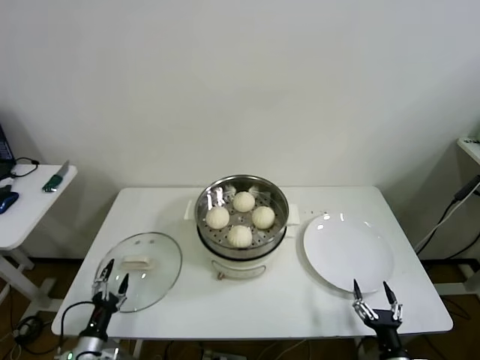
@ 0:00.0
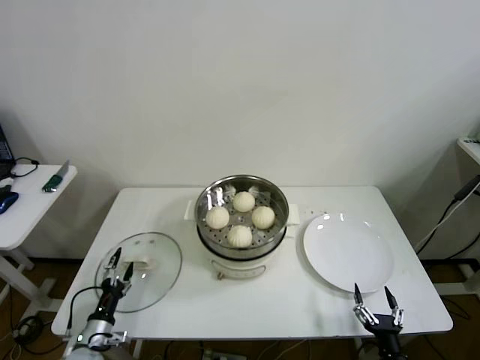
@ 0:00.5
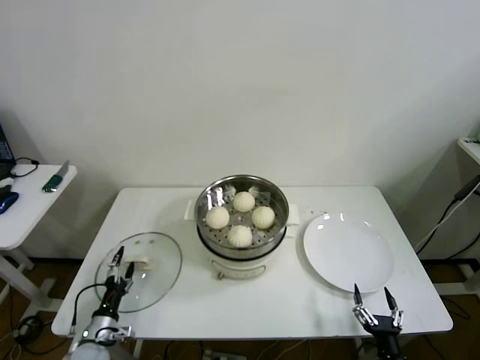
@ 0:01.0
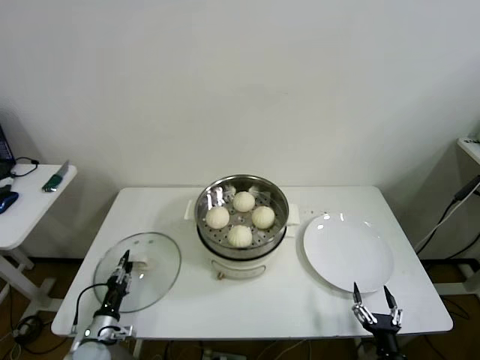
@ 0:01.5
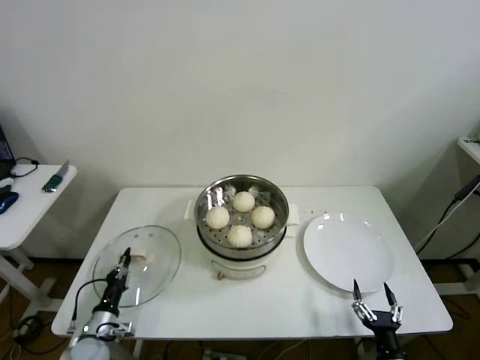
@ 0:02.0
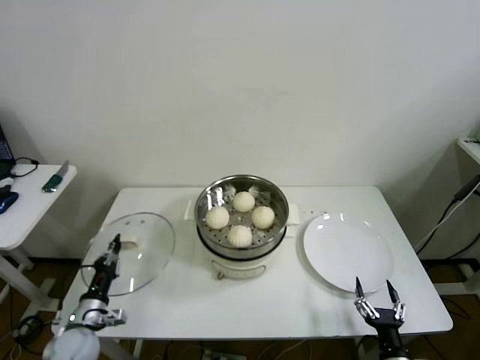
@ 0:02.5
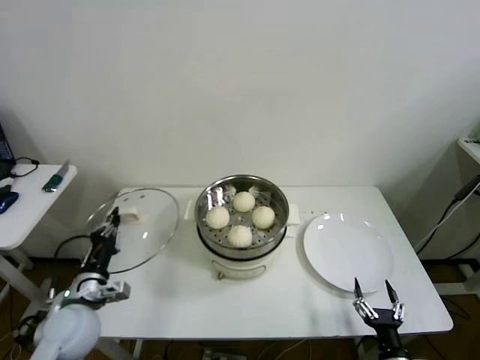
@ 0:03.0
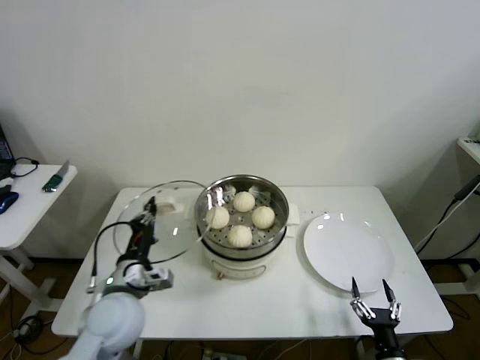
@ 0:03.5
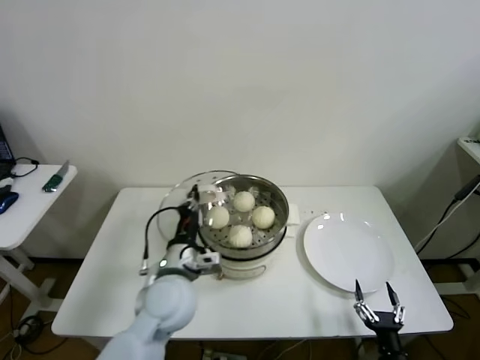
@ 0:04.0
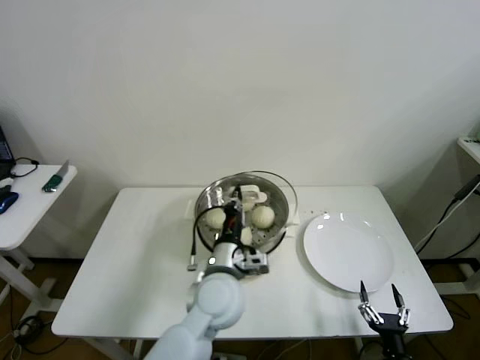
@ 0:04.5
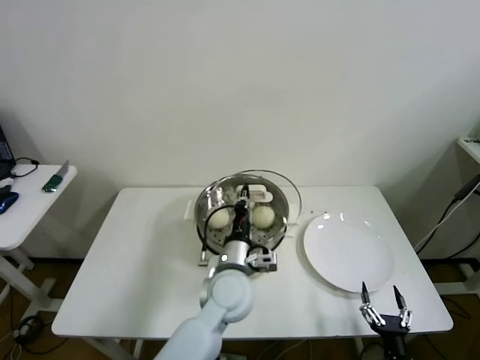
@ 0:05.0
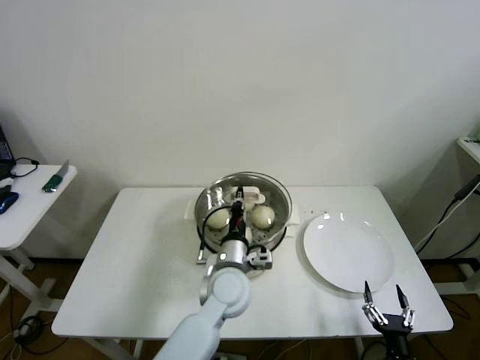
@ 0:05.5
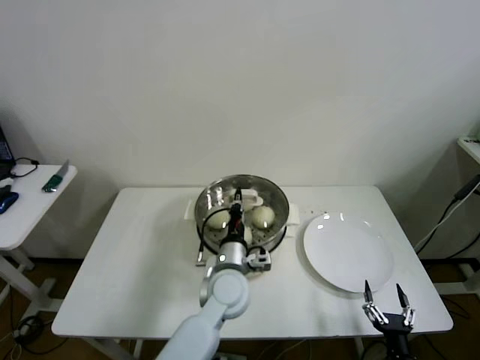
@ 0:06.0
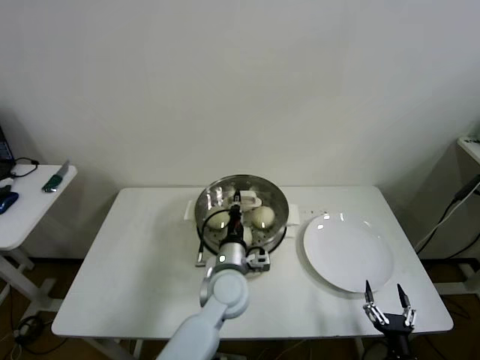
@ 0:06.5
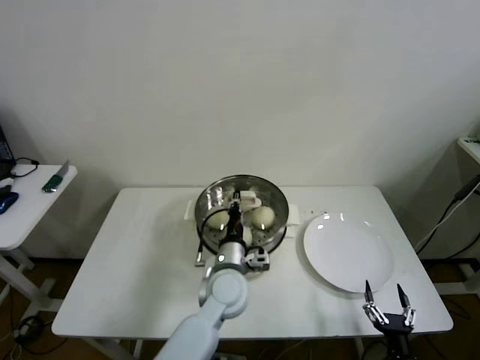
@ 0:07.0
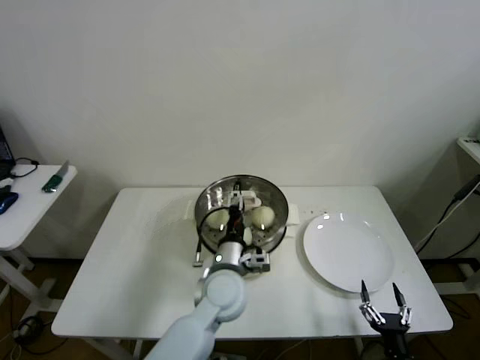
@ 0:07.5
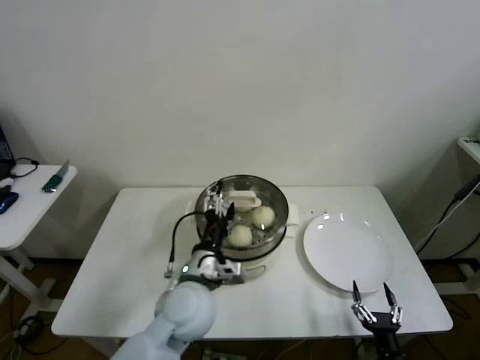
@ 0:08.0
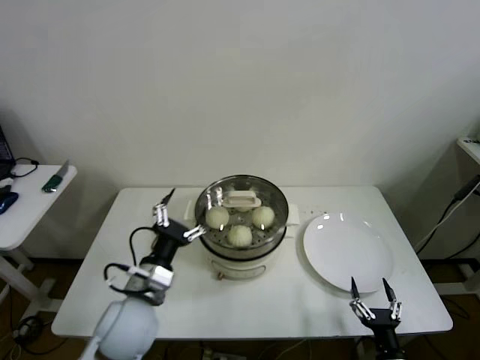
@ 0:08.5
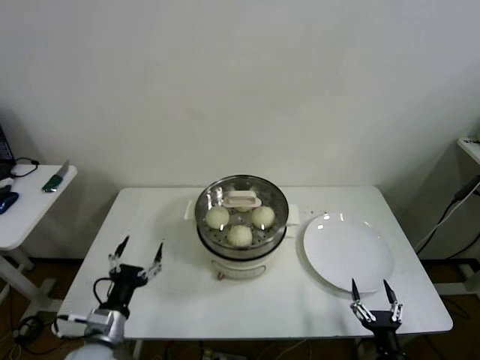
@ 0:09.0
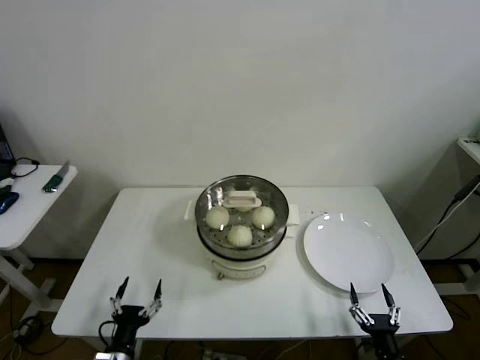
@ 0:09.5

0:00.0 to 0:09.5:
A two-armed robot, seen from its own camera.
Step, 0:02.0 to 0:07.0: Place the pot lid on the steamer with left gripper.
0:00.0 to 0:02.0: The left gripper is displaced forward by approximately 5 cm, and closes.
0:02.0 to 0:04.0: The left gripper moves upward and to the right, some 35 cm.
0:04.0 to 0:05.5: The left gripper is displaced to the right by some 10 cm.
0:05.5 to 0:07.5: The left gripper opens.
0:07.5 to 0:09.5: The left gripper moves to the left, backward and downward, some 35 cm.

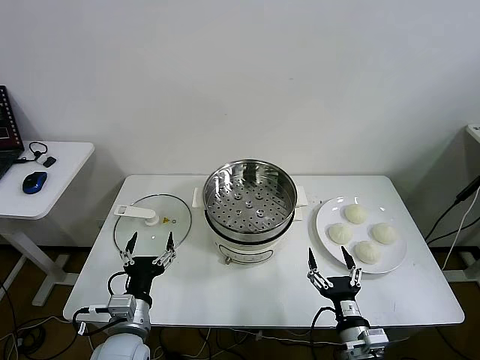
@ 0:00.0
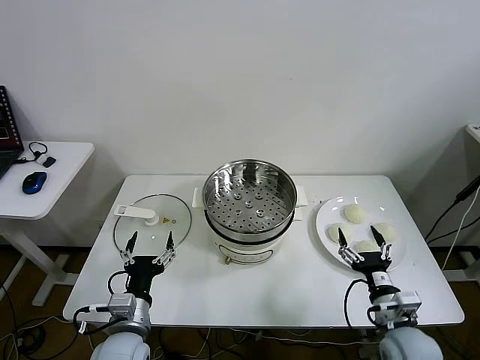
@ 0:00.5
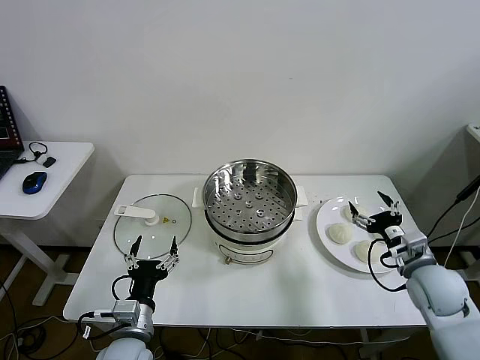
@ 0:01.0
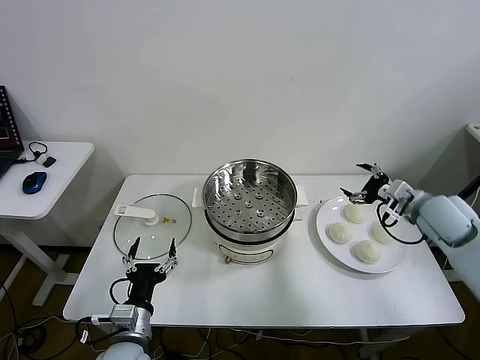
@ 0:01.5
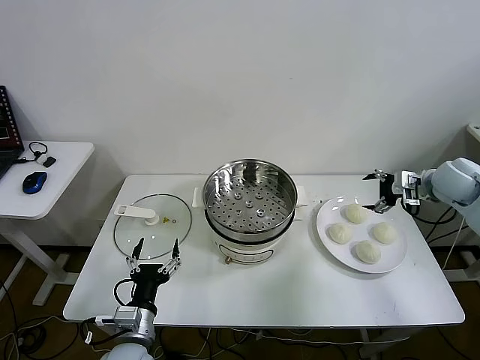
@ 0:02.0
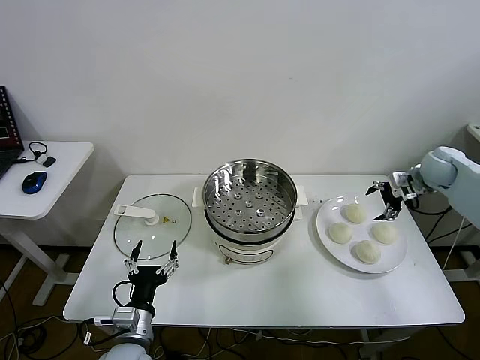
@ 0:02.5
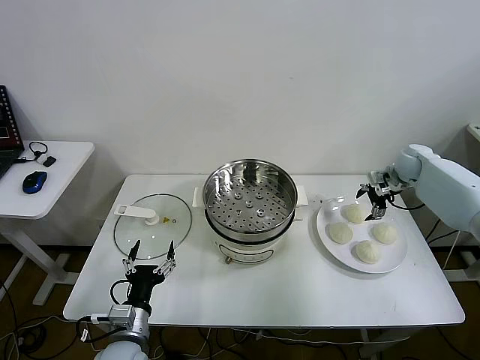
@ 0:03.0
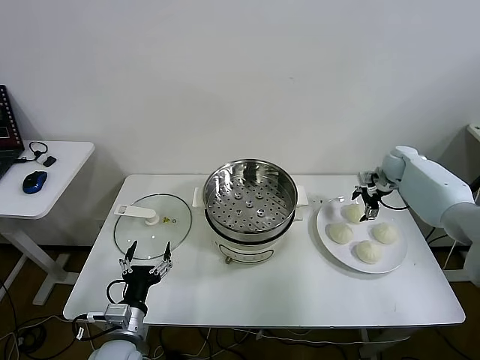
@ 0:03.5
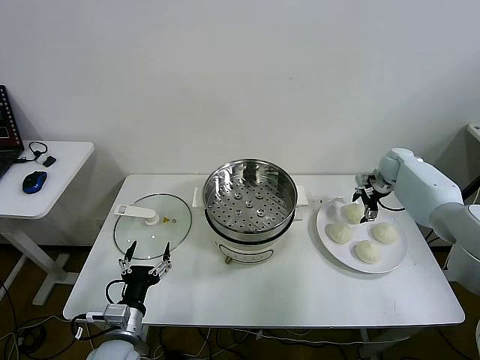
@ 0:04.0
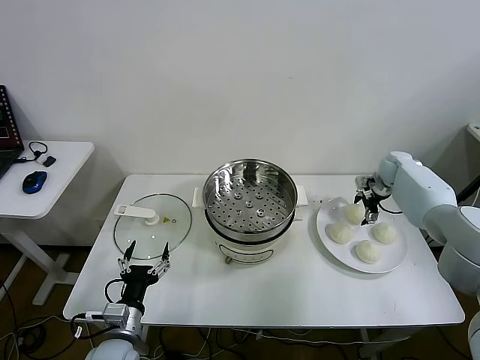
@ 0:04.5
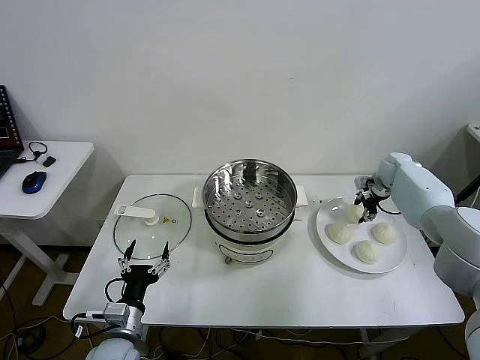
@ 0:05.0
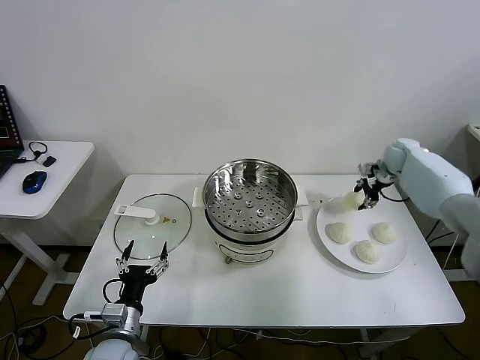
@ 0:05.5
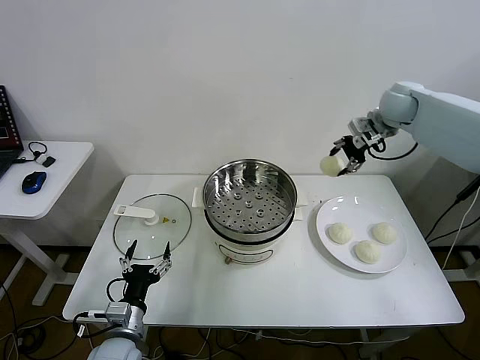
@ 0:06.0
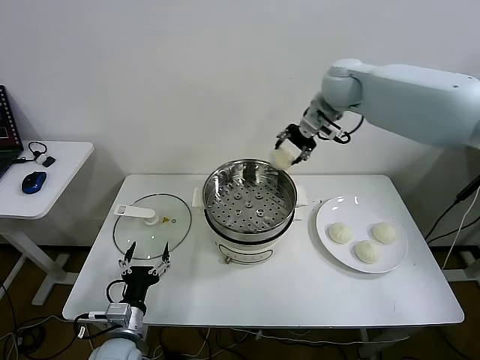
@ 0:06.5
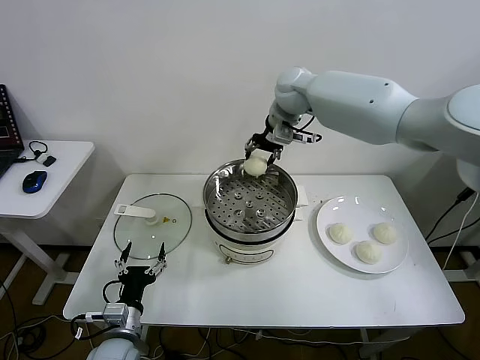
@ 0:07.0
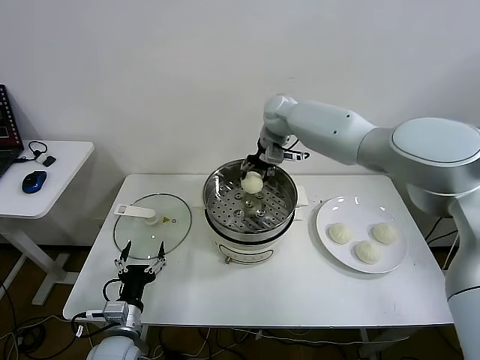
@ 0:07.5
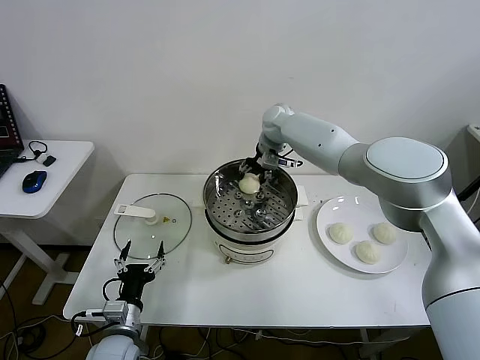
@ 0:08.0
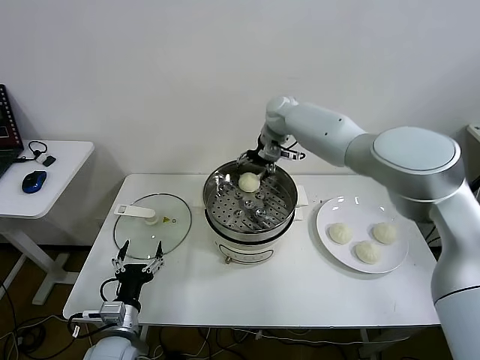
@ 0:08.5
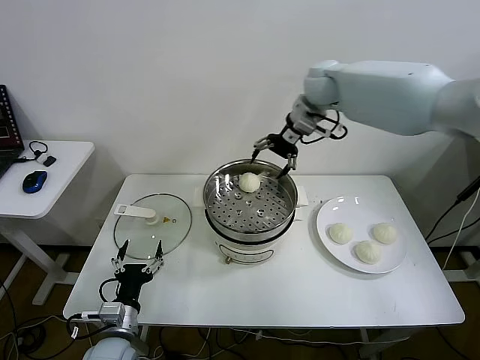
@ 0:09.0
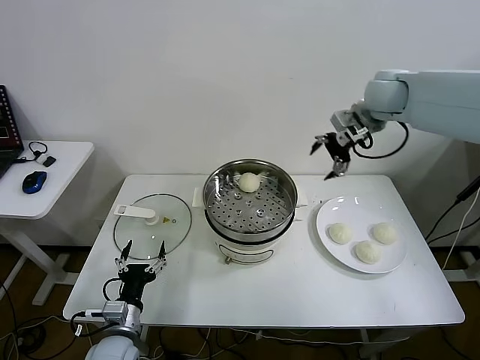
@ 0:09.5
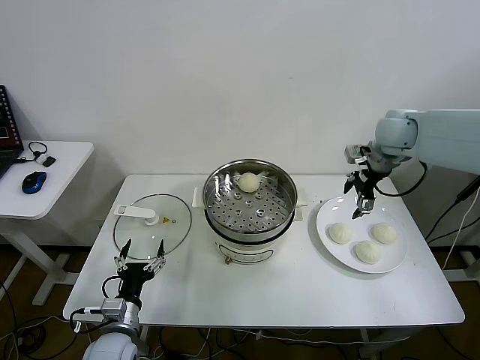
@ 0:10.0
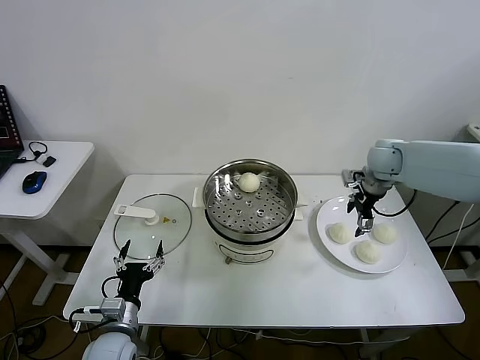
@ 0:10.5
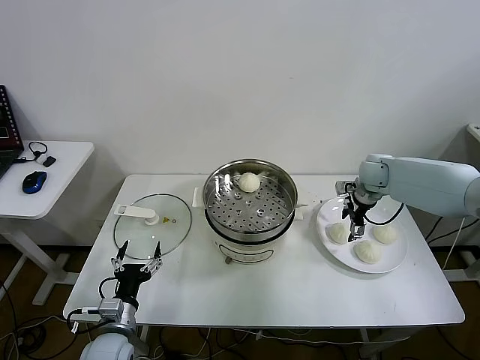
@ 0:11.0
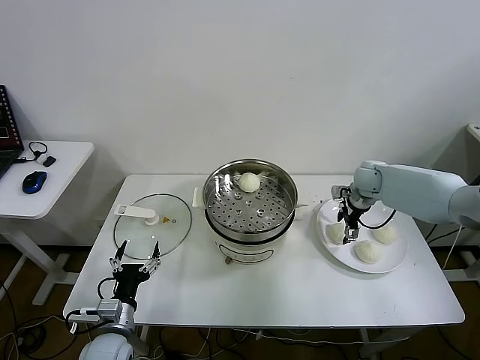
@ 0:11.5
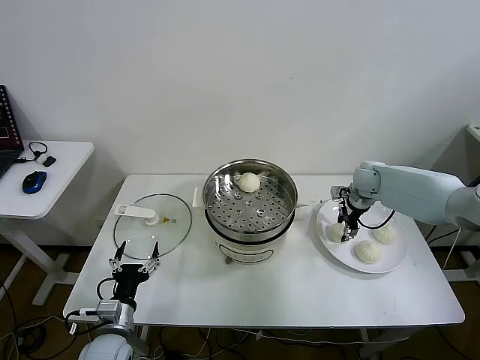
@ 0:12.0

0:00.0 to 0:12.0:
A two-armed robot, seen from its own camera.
Step, 0:00.0 to 0:05.0: Grasp the baozi in the plate with right gripper.
Step, 0:05.5 to 0:08.0: Place the baozi on the steamer with right gripper.
0:02.0 to 0:04.0: The right gripper moves forward and downward, about 15 cm.
0:04.0 to 0:06.0: The right gripper shifts approximately 25 cm upward and to the left, and closes.
0:06.0 to 0:08.0: The right gripper moves to the left and downward, about 25 cm.
0:08.0 to 0:10.0: The right gripper is displaced to the right and backward by about 25 cm, and opens its fingers.
0:10.0 to 0:12.0: The right gripper travels downward by approximately 15 cm, and closes.

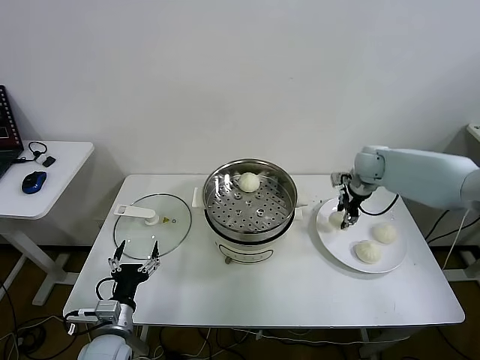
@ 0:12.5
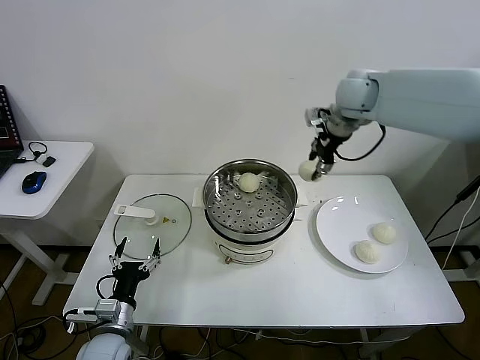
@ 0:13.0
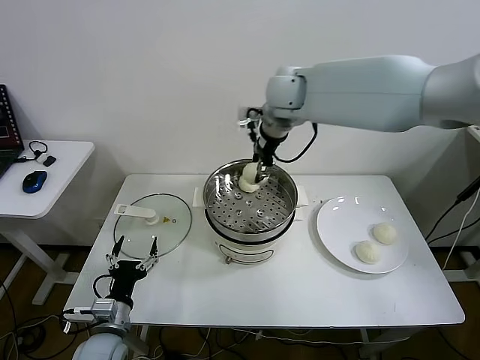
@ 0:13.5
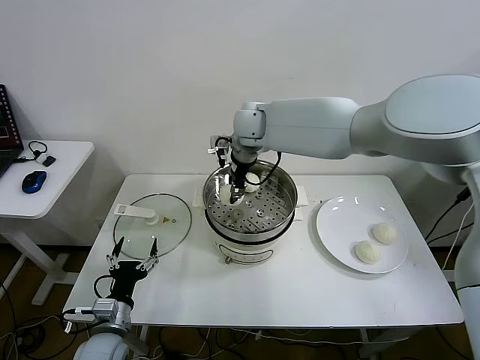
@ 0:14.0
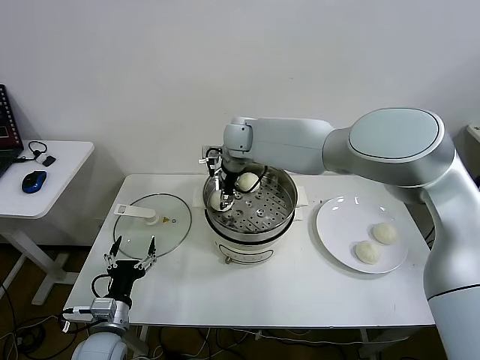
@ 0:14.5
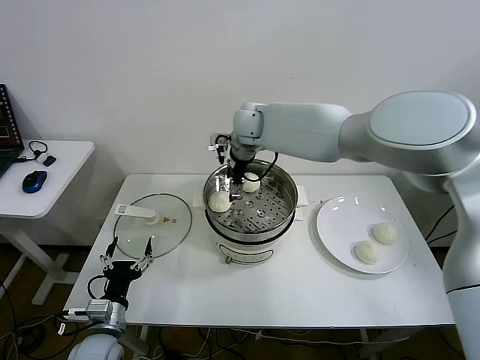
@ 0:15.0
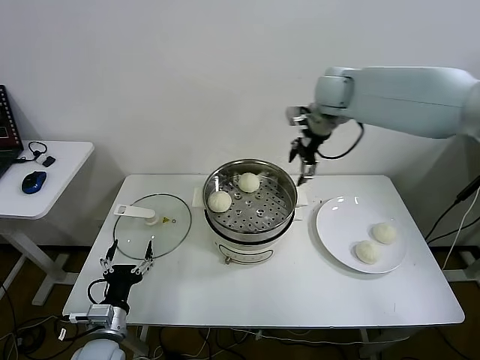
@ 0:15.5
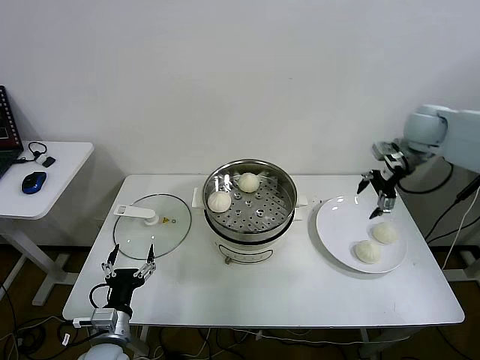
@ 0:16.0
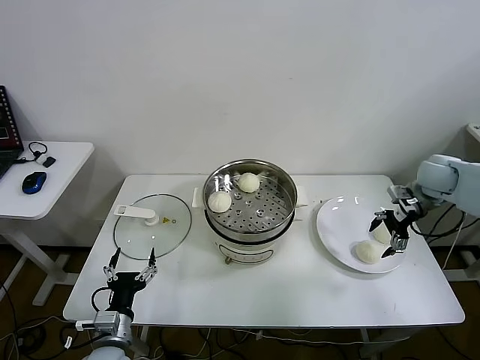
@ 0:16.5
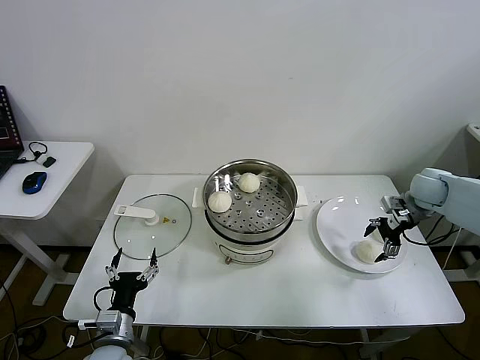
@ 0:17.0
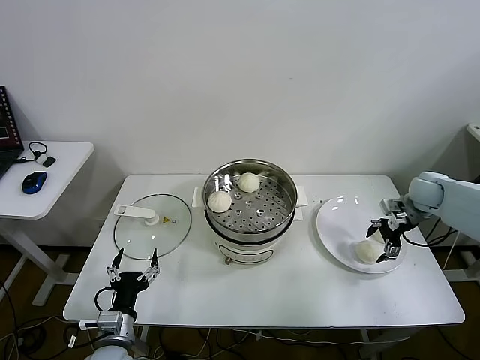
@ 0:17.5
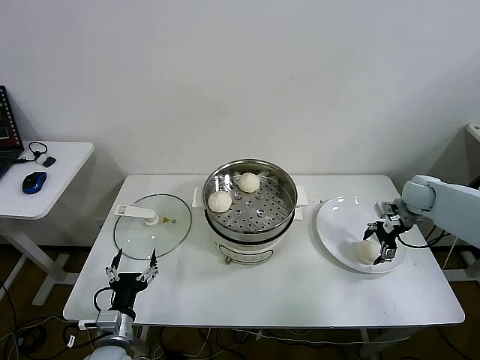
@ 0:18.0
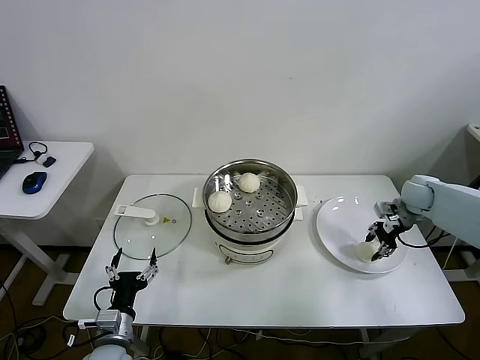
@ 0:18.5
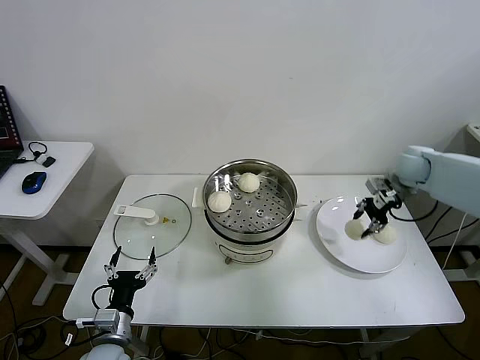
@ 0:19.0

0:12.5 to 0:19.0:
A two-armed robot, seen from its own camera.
Step, 0:12.5 to 0:15.0: Place the baozi on the steamer with right gripper.
Step, 0:15.5 to 0:18.5: Grasp the baozi in the plate with right gripper.
0:12.5 to 0:14.5: The right gripper travels to the left by about 35 cm.
0:14.5 to 0:17.0: The right gripper travels to the right by some 50 cm, and opens up.
0:17.0 to 0:19.0: The right gripper ends up some 10 cm from where it was, and closes.
